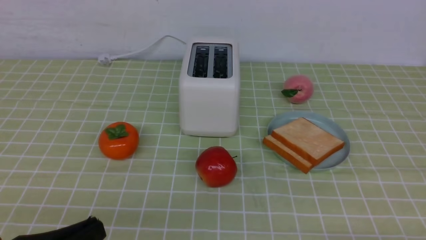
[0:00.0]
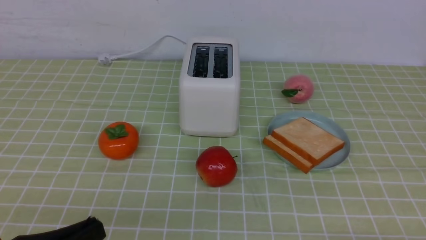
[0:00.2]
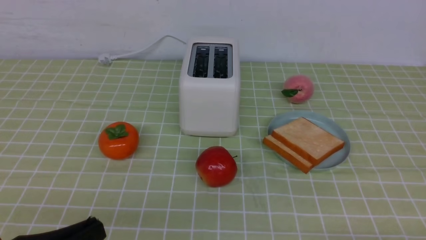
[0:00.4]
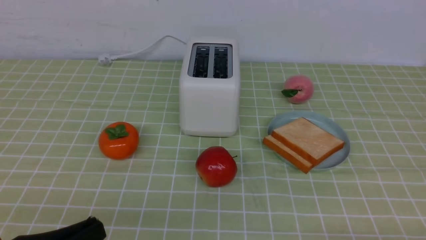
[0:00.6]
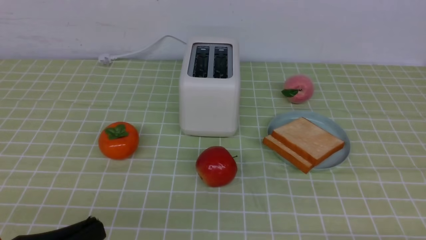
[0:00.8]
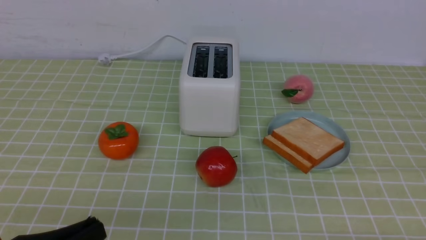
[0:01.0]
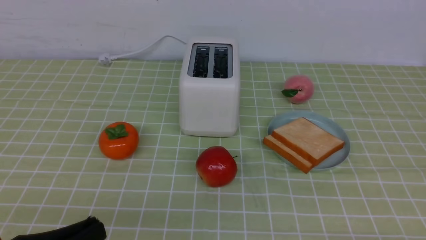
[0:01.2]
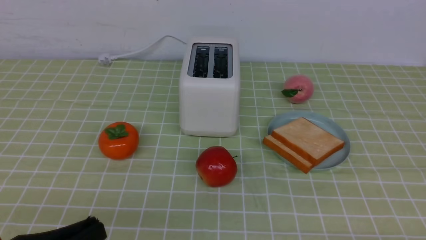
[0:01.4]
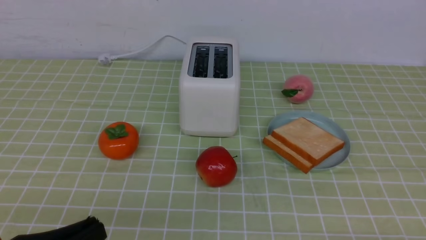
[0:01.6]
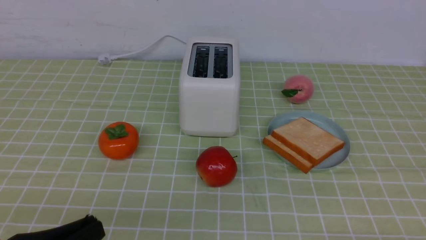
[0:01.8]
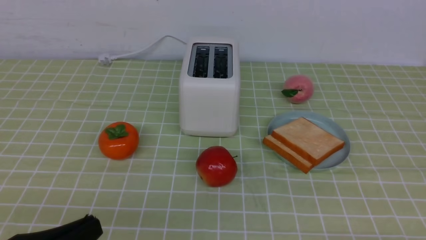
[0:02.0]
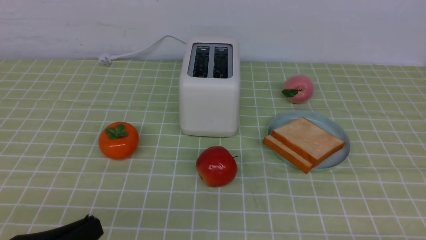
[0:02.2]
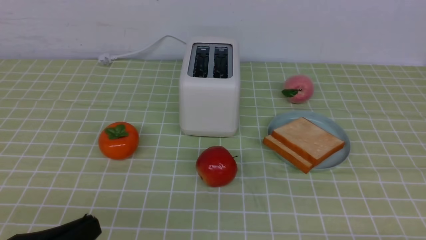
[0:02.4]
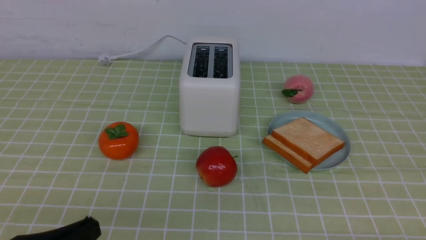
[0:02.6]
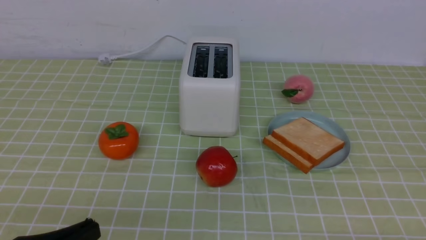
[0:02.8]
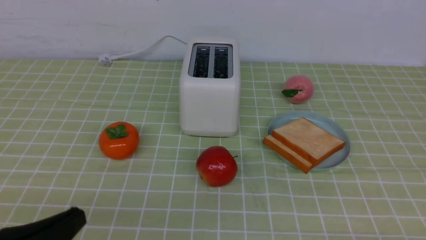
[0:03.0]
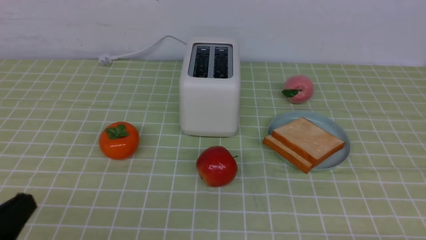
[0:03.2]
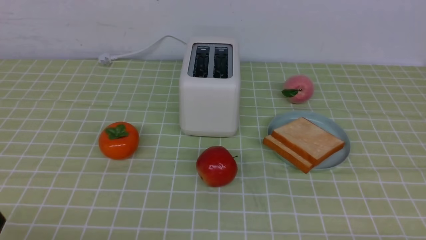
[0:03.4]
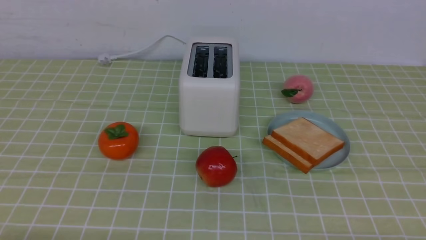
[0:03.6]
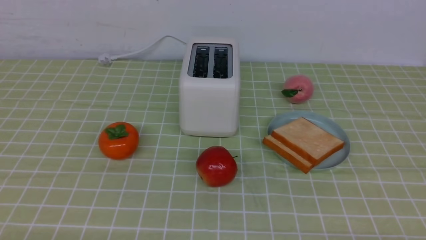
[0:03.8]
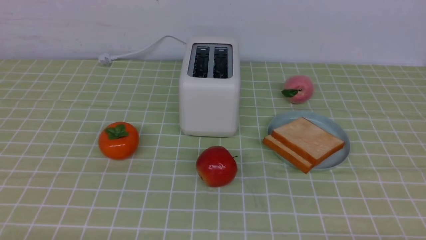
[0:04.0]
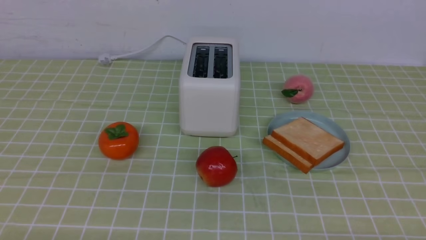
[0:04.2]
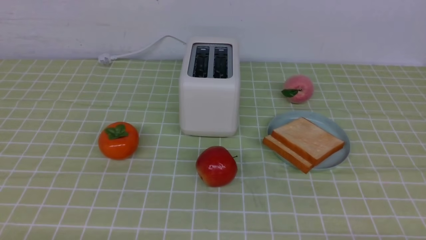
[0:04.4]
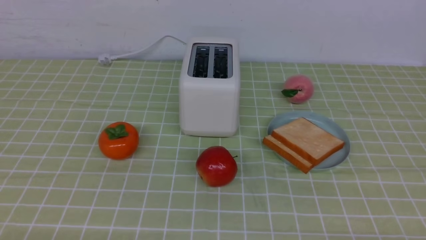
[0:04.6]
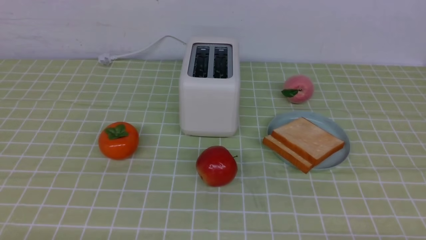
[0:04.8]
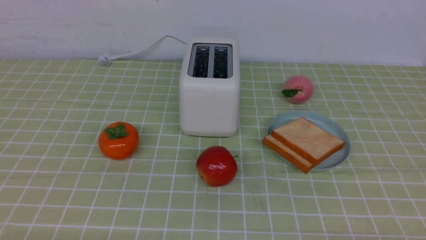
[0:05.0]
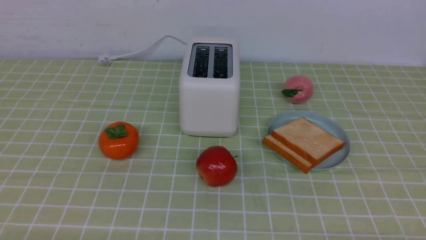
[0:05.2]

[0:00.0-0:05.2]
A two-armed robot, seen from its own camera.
Task of the whole recording: take toasted bread from bread machine on green coffee tablecloth place on plate.
0:01.8 to 0:03.4: The left gripper shifts by about 5 cm.
